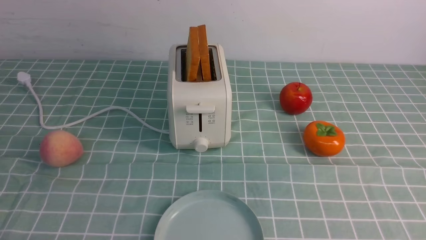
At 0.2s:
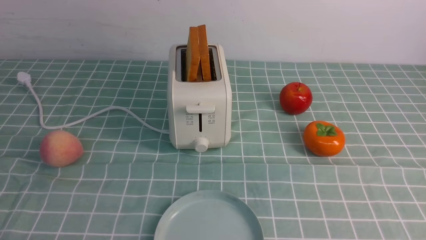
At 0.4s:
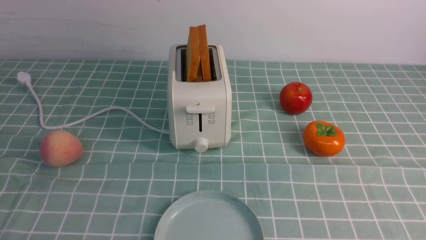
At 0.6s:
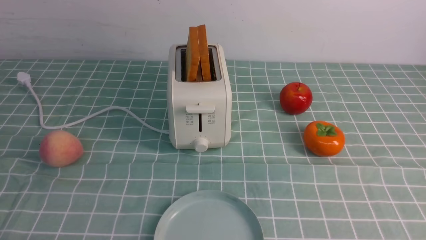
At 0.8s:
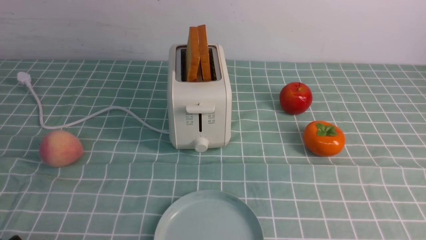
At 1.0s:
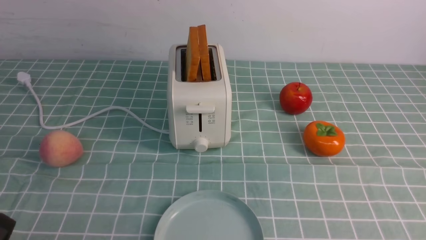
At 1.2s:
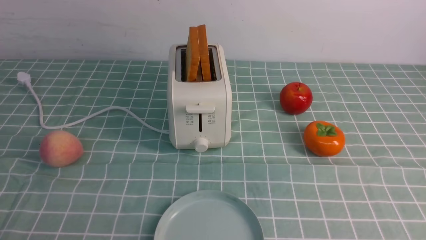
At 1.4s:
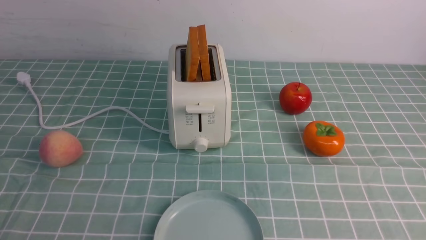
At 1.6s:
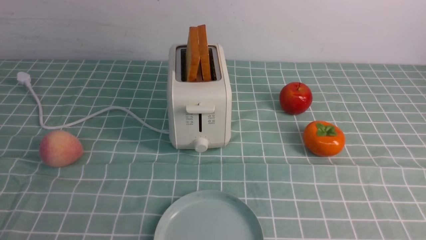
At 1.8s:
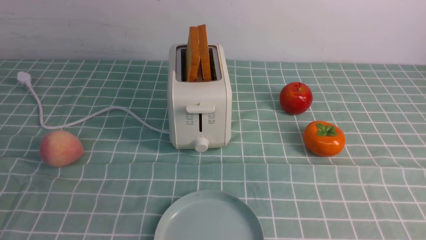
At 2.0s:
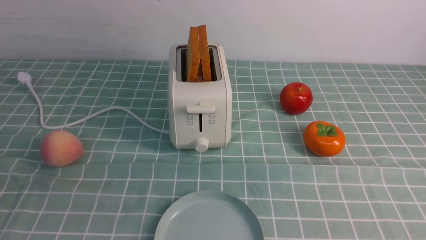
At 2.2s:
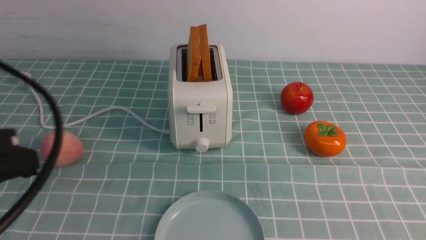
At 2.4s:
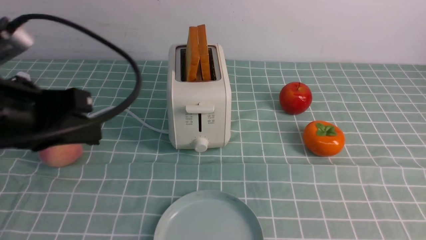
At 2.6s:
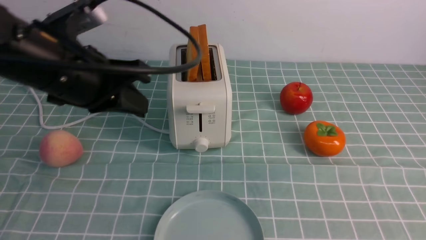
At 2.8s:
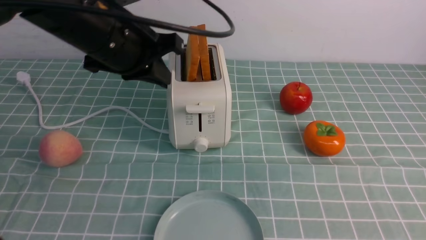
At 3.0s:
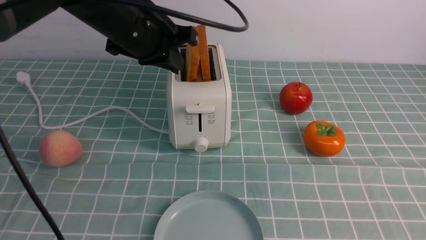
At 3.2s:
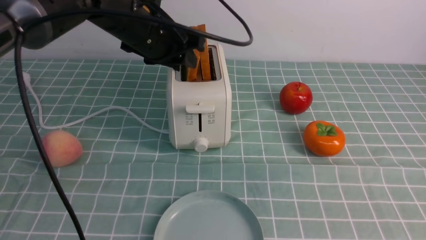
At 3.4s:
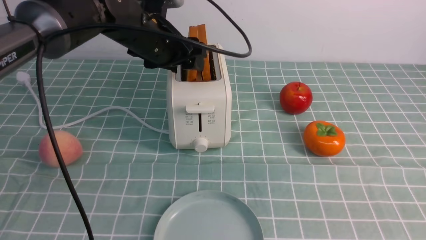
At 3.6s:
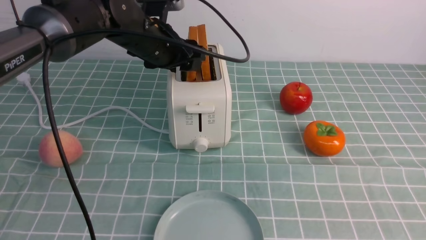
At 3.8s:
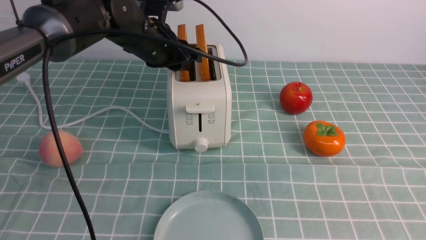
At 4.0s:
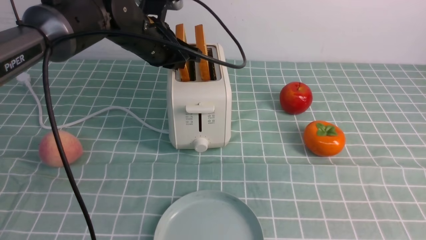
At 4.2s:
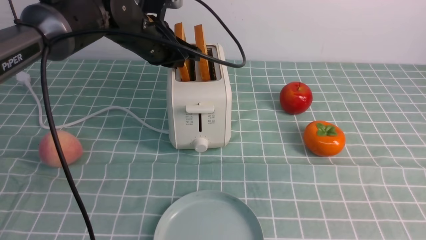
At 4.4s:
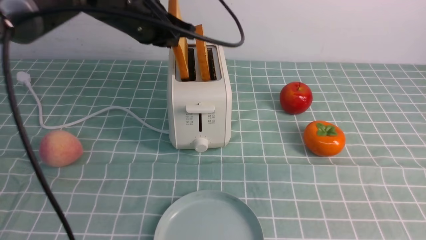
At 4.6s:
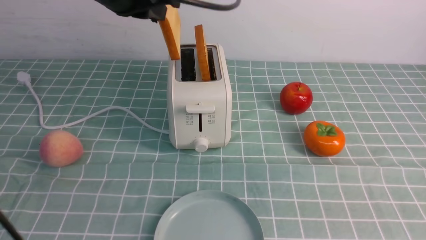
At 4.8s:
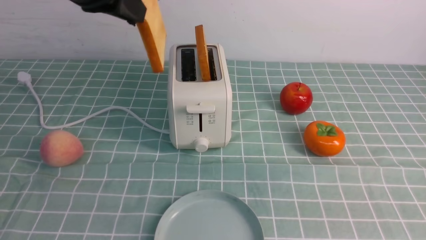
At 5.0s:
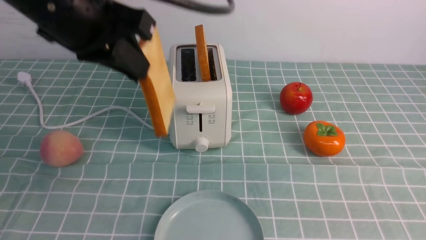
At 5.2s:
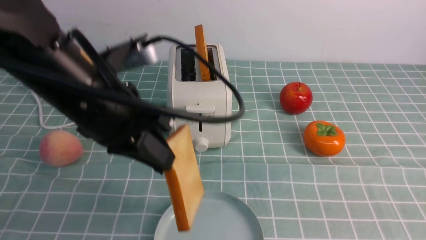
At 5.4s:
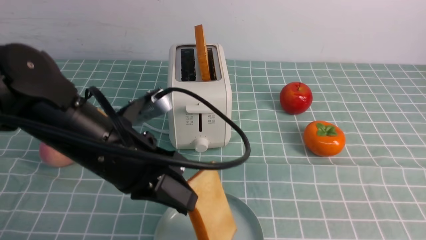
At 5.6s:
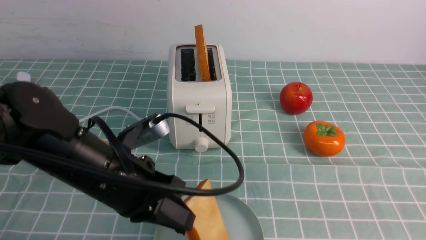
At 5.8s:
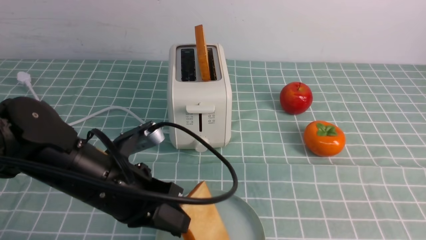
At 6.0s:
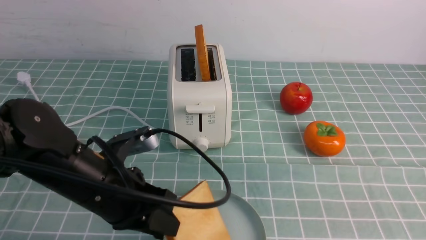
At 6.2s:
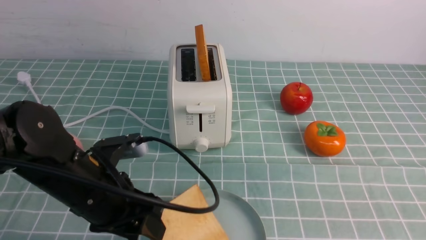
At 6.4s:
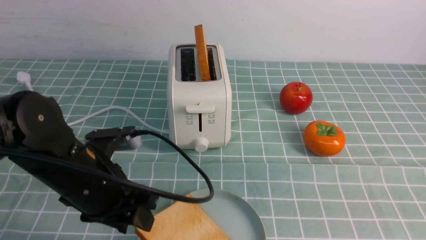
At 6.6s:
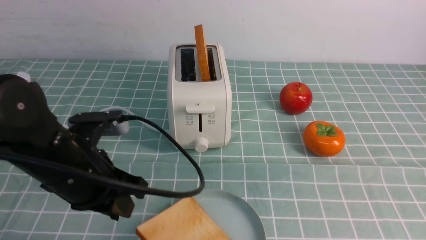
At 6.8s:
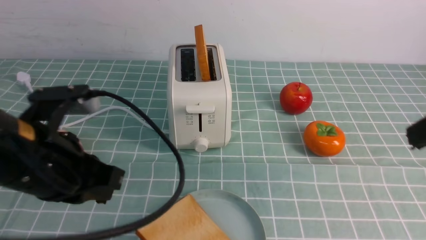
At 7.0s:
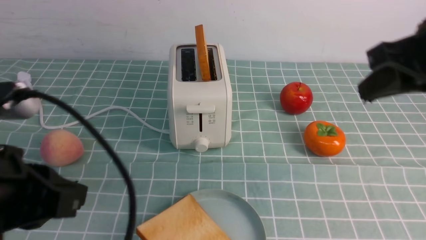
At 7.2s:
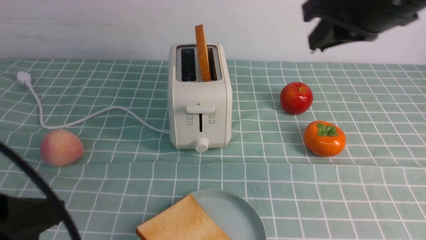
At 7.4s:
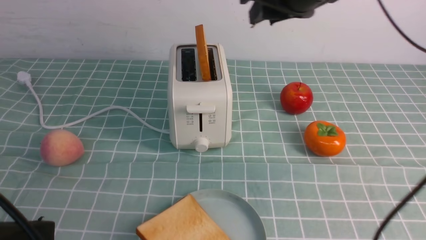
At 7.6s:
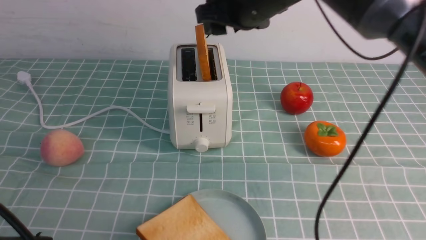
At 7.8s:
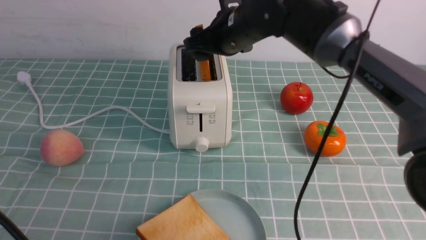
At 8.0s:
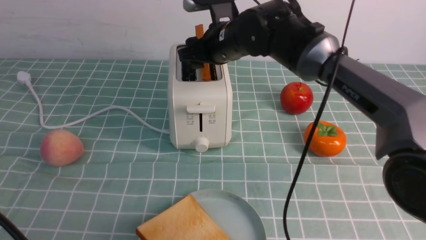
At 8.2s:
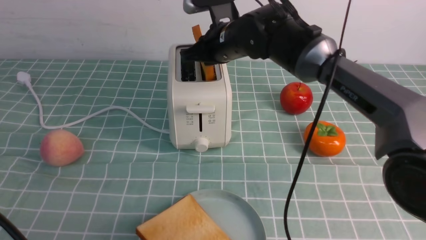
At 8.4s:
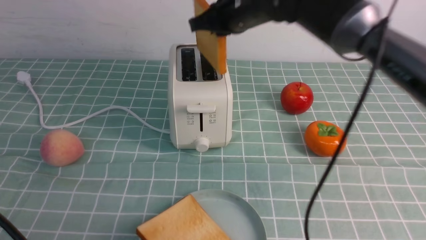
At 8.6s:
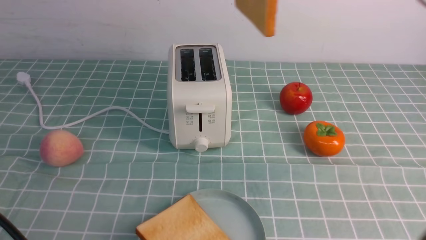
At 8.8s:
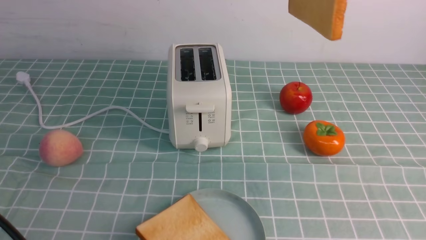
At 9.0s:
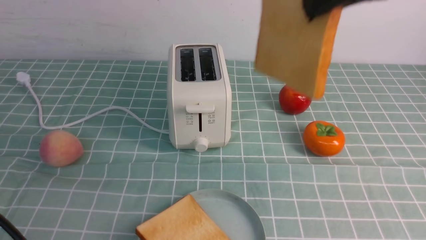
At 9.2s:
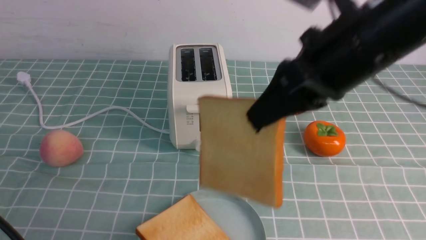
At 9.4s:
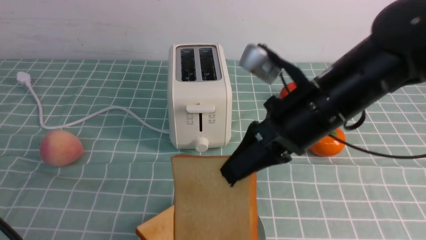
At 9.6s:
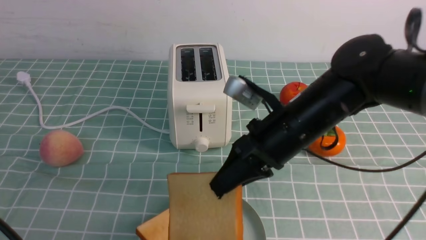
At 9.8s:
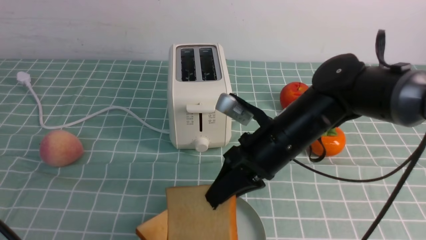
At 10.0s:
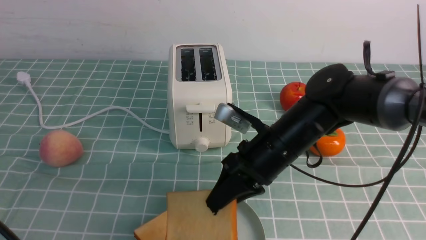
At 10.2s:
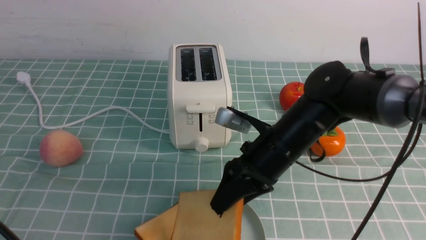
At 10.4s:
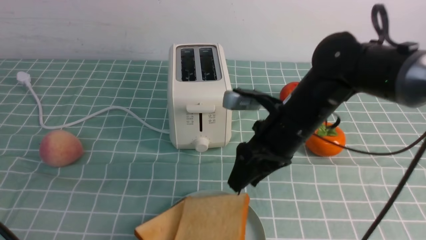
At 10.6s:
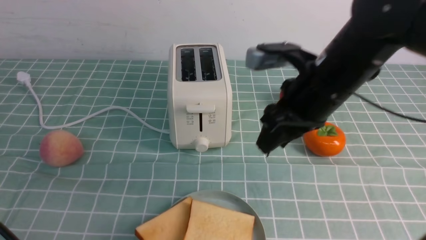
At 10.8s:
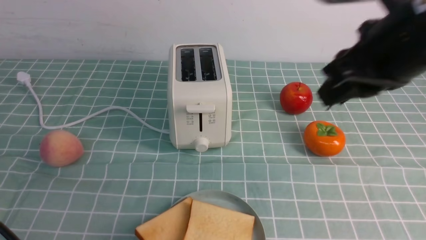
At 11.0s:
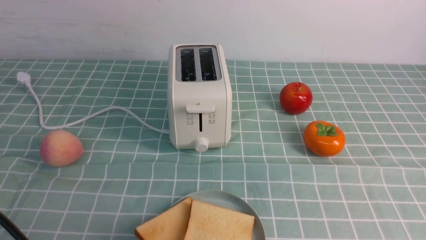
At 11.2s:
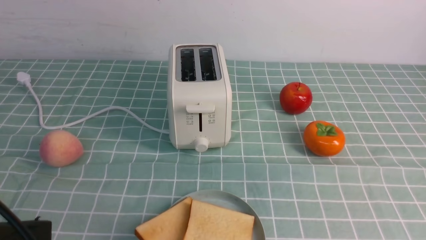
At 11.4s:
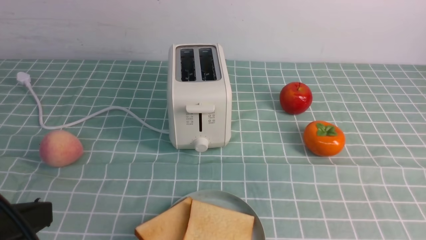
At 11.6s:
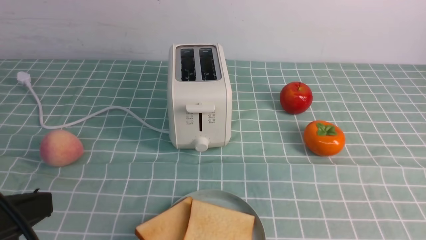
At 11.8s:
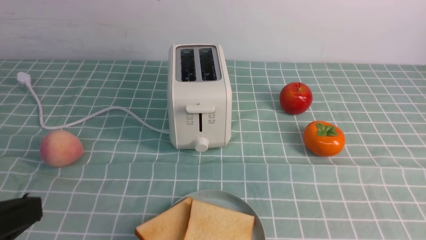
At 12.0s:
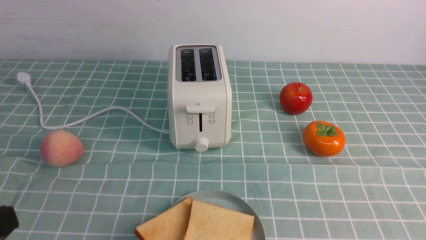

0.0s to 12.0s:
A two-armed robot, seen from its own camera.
Task of the whole recording: take toasted bread from bread machine on blue coffee table place on plate.
Step, 0.0s to 4.8s: use the left arm to take out a slice of bread.
Step, 5.2s to 6.4s: use the left arm to put a slice of bread into the empty plate.
Step, 6.6s to 8.6s: use the right arm to take out a slice of bread.
Step, 9.0s to 11.2s: use the right arm to put a slice of bread into the plate.
1.6s to 3.0s: The left gripper is displaced forward and to the right by about 35 cm. Meanwhile the right gripper is displaced upward by roughly 15 cm, and closes its fingers.
3.0s to 4.4s: The left gripper opens and closes again.
4.4s to 6.0s: The left gripper shifts about 25 cm backward and downward, and opens its fingers.
6.0s to 7.6s: The right gripper goes approximately 40 cm forward and to the left, and opens its fingers, while the left gripper is displaced backward, upward and to the left by approximately 20 cm, and closes its fingers.
7.6s to 9.0s: The right gripper is displaced backward, to the right and upward by roughly 20 cm, and closes its fingers.
9.0s to 10.4s: The right gripper shifts some 20 cm downward, and opens its fingers.
10.4s to 12.0s: The right gripper is displaced backward and to the right by some 35 cm, and closes its fingers.

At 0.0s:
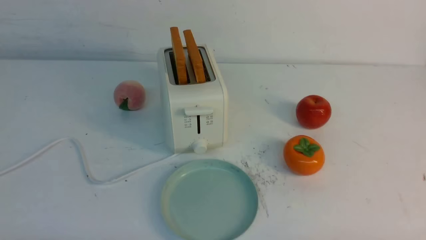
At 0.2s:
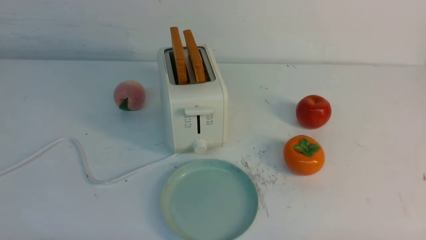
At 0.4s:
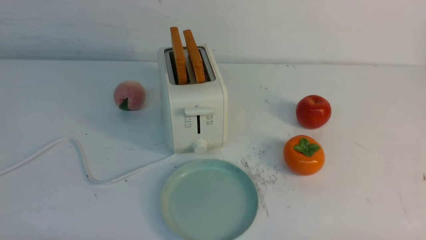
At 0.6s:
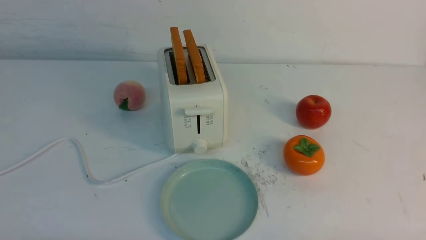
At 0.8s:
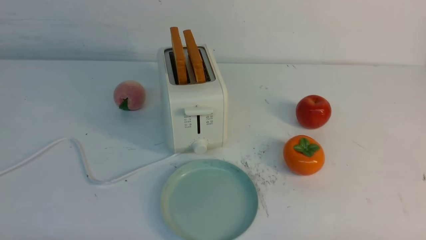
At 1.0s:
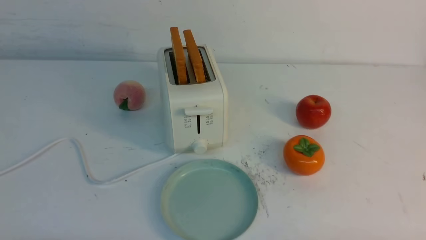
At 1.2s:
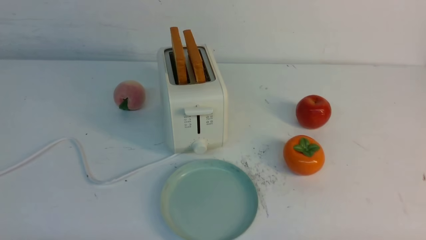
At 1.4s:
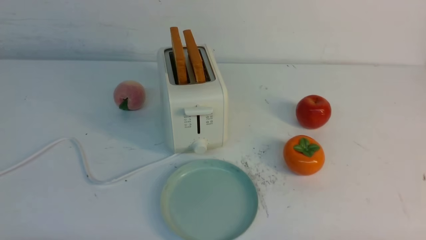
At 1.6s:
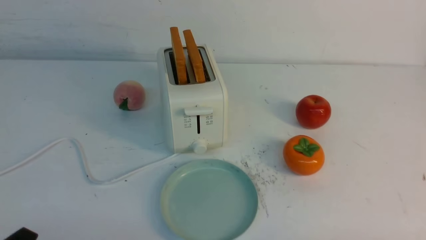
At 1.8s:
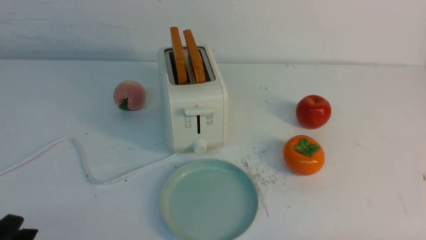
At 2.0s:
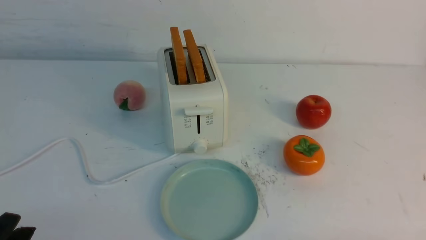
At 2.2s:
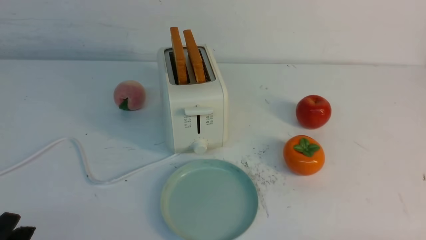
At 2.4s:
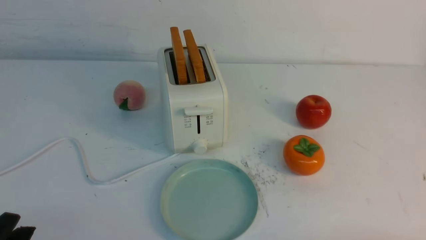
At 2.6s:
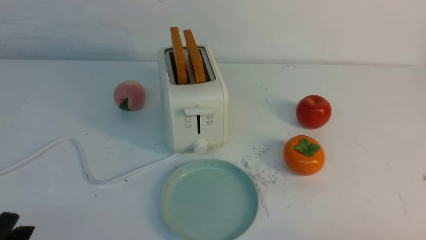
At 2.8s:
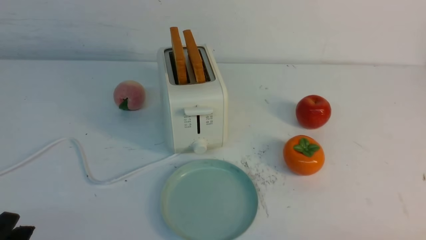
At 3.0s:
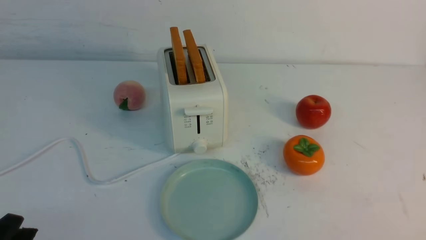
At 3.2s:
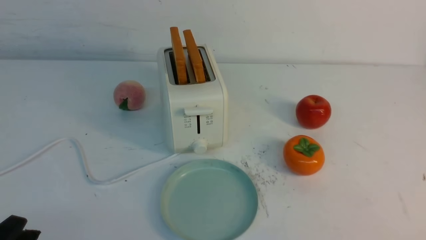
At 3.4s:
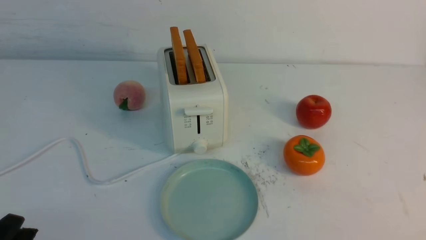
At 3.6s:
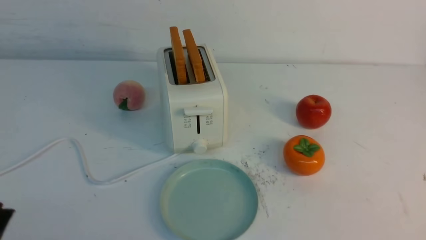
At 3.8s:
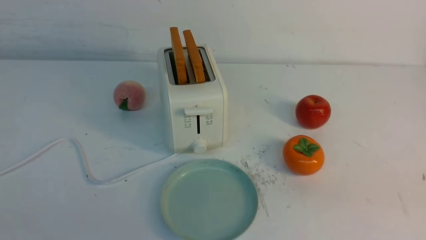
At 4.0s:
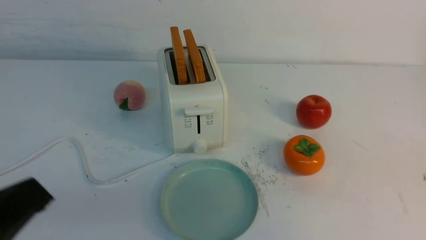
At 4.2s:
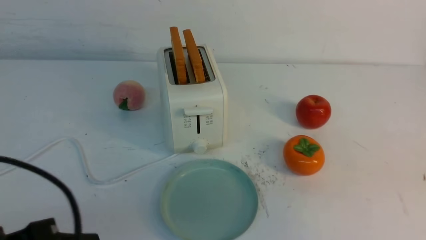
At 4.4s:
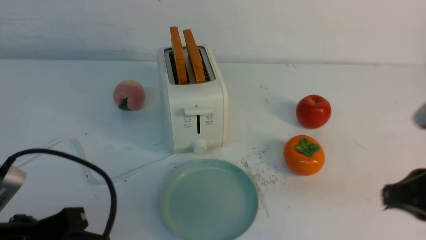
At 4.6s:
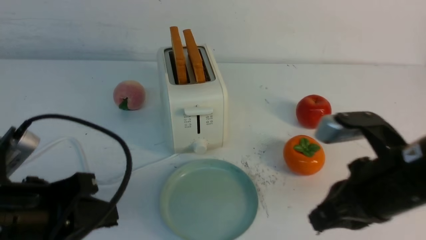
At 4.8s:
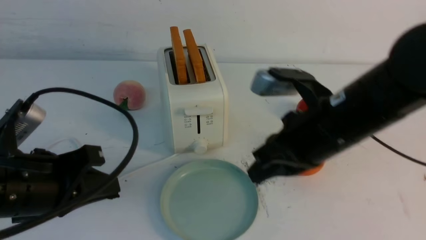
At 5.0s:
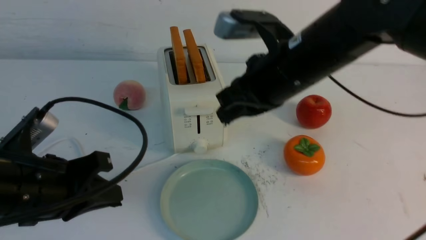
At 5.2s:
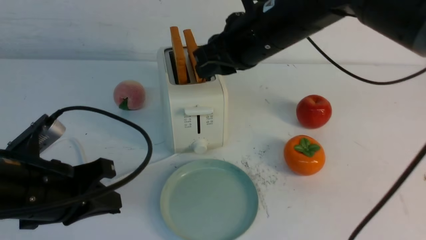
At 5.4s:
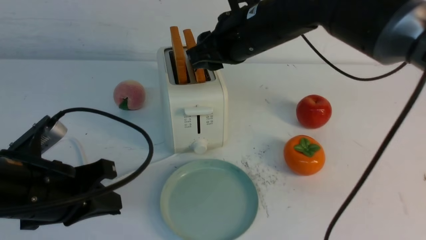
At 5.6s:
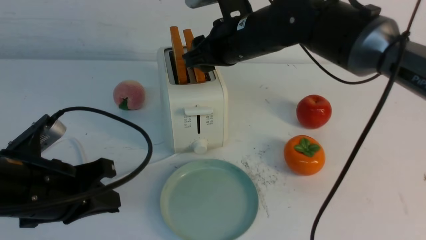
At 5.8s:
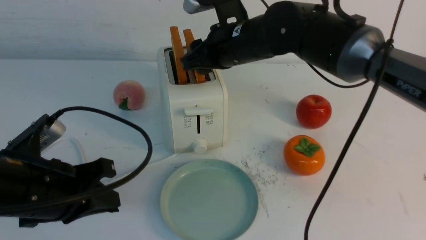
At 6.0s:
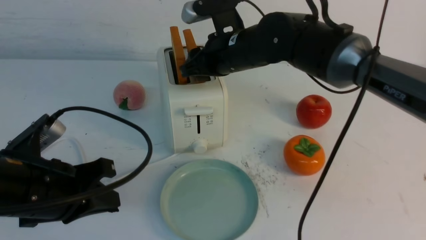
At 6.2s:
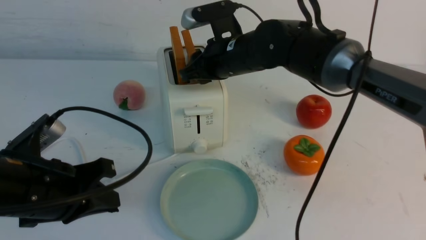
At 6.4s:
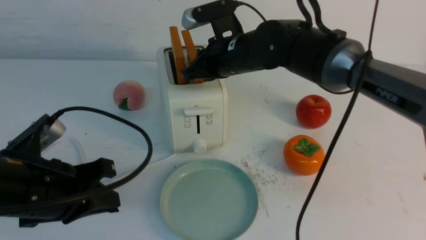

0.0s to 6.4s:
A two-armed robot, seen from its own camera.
Task of the whole recording: take toasted bread from bread machine on white table place on plate.
3.2s to 4.8s: The right gripper shifts about 30 cm forward, to the left and upward, and closes. Meanwhile the left gripper heads forward and upward, covering about 15 cm, and closes.
4.8s to 6.4s: The right gripper heads forward and to the left, covering approximately 20 cm, and opens, then closes again.
